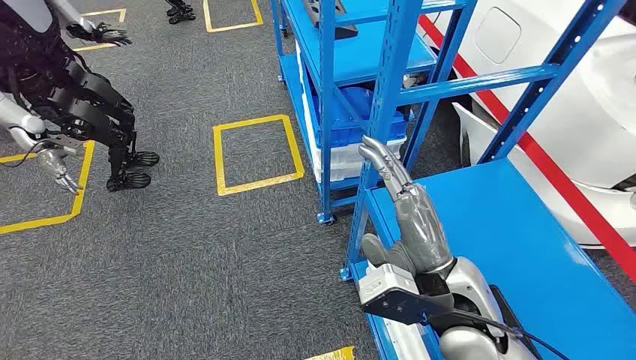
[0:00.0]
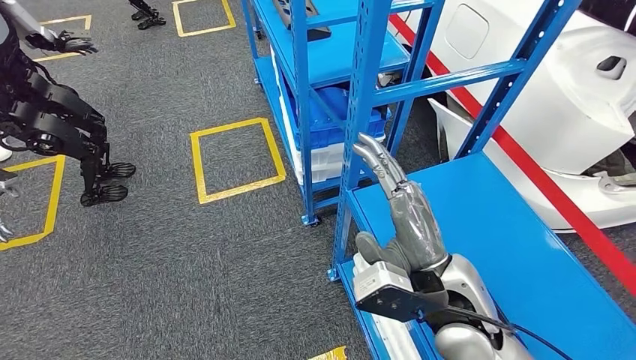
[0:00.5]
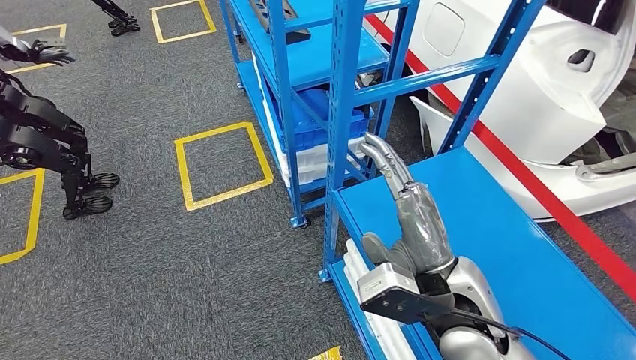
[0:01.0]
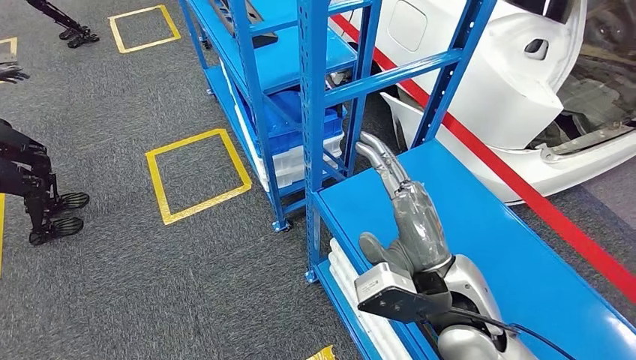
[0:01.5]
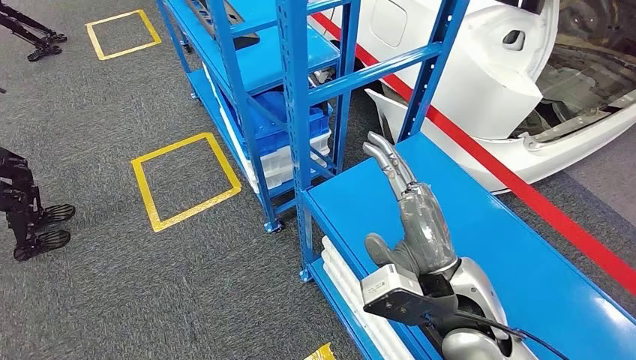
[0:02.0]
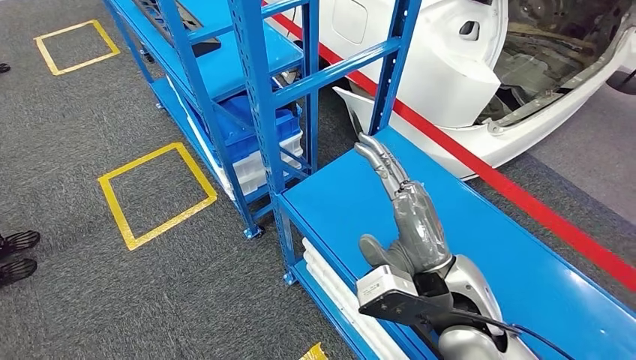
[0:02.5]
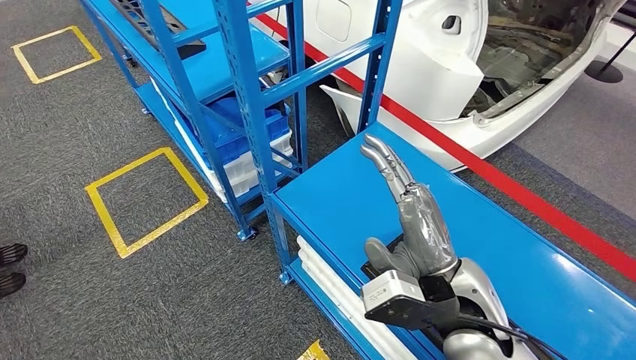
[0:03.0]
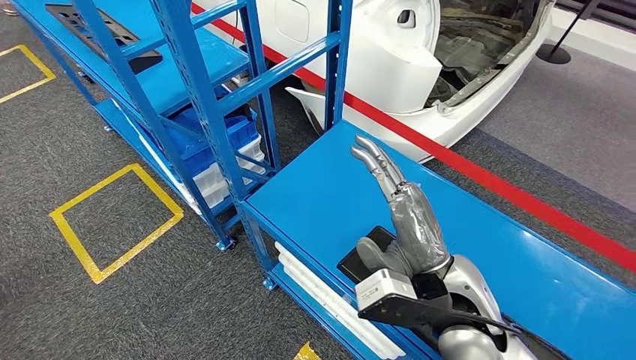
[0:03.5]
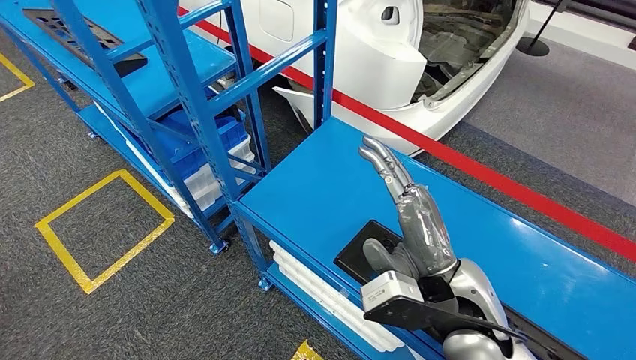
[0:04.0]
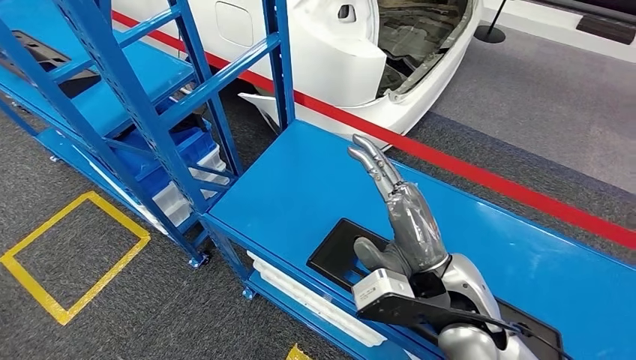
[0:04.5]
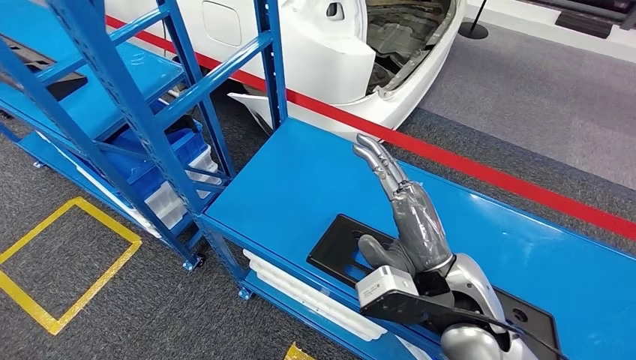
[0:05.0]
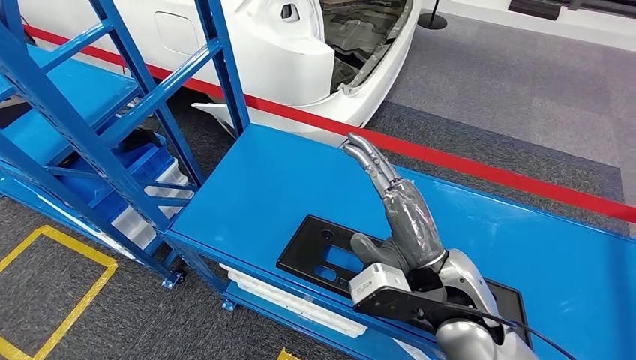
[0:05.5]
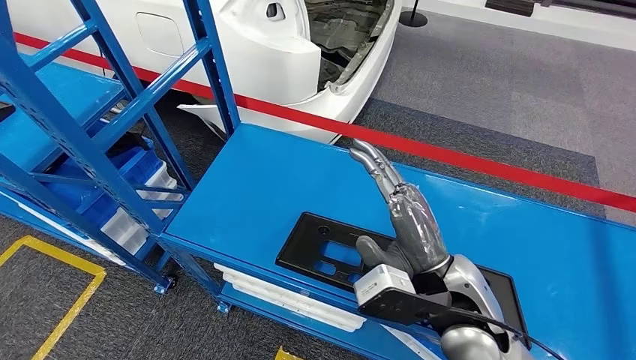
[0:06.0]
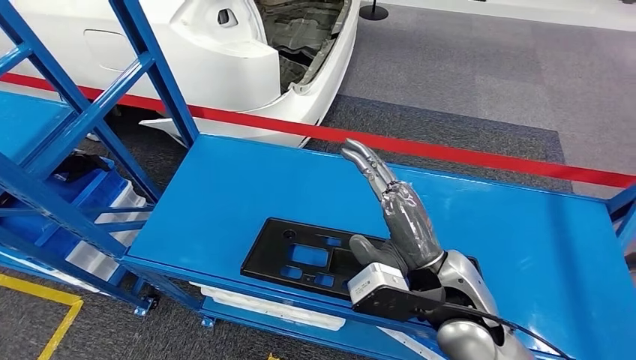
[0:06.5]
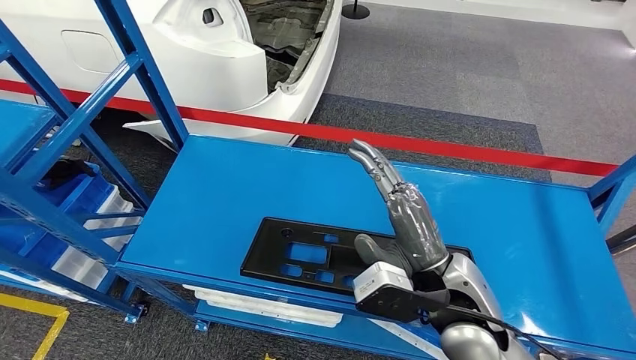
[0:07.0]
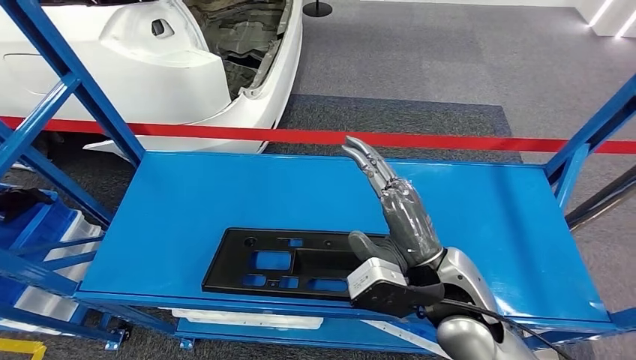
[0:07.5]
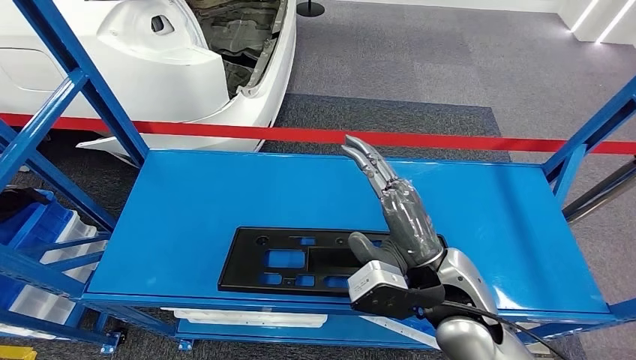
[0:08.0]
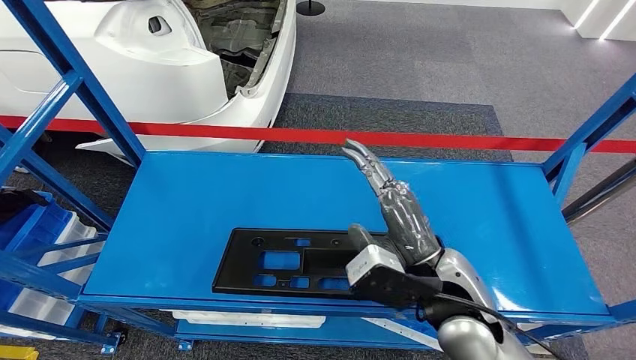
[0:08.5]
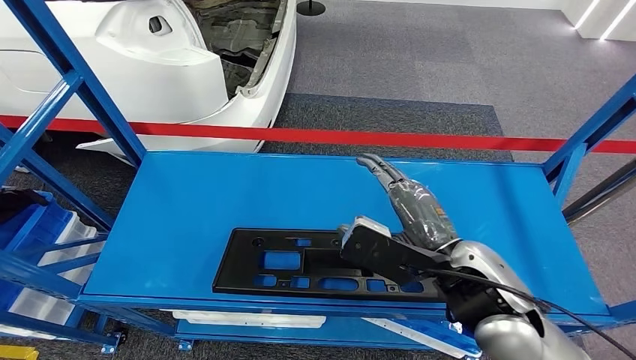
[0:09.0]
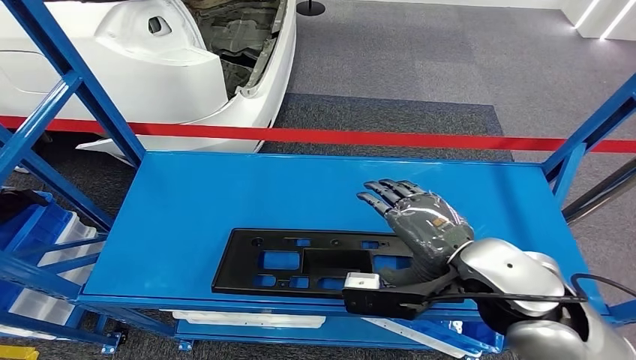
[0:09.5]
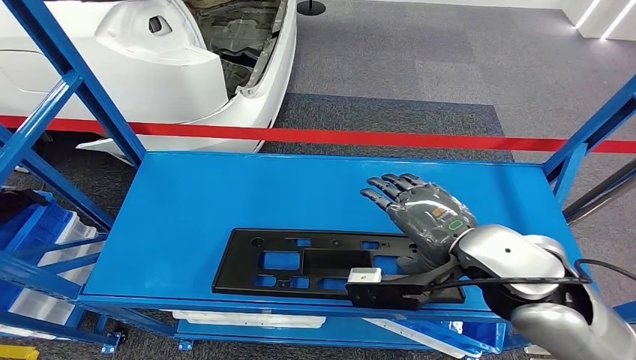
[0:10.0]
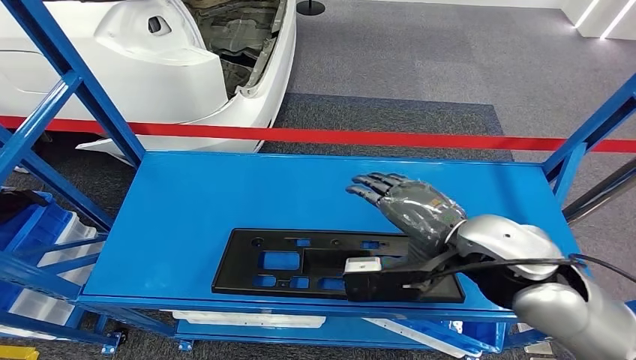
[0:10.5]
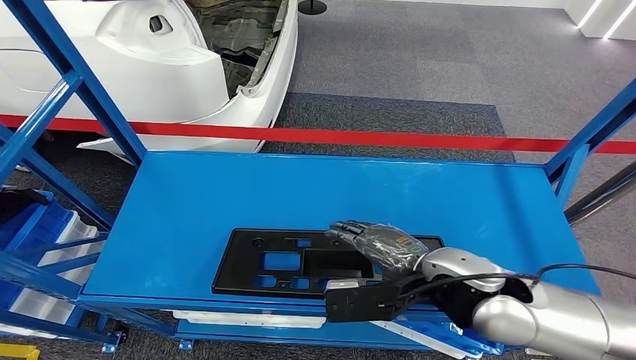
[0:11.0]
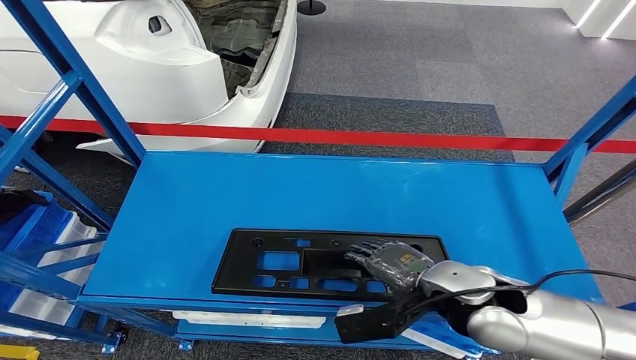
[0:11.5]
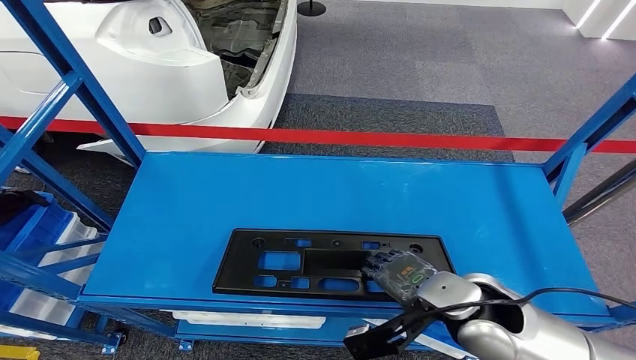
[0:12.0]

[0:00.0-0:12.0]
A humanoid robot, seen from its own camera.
0:08.0 to 0:10.0: The right hand goes about 5 cm upward.
0:10.0 to 0:12.0: The right hand is displaced downward by some 10 cm.

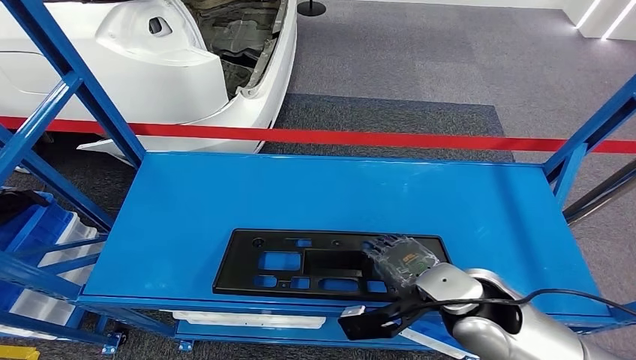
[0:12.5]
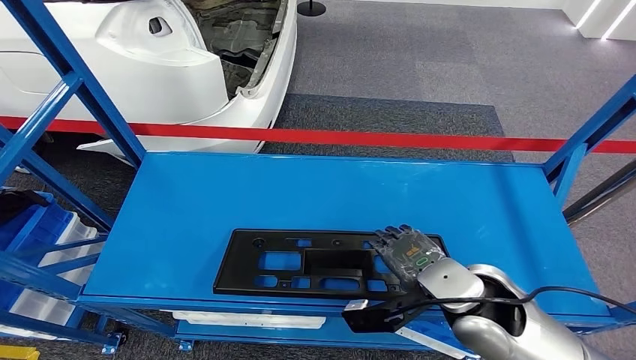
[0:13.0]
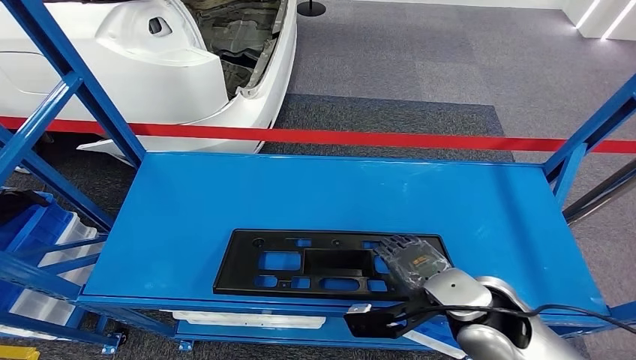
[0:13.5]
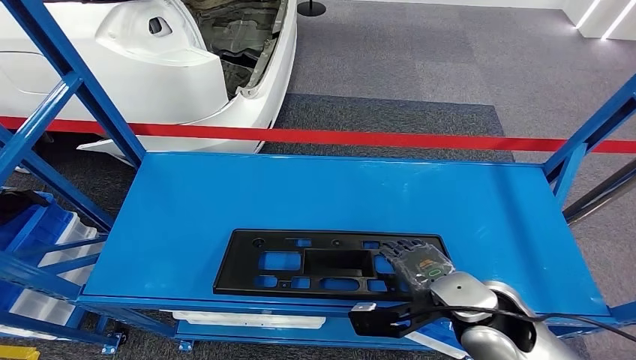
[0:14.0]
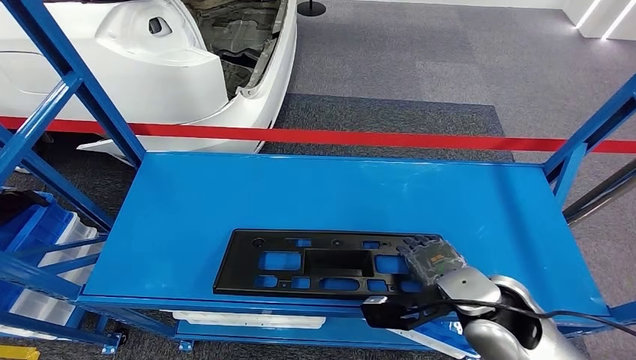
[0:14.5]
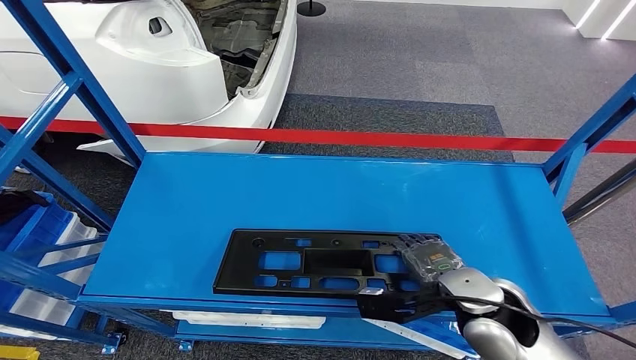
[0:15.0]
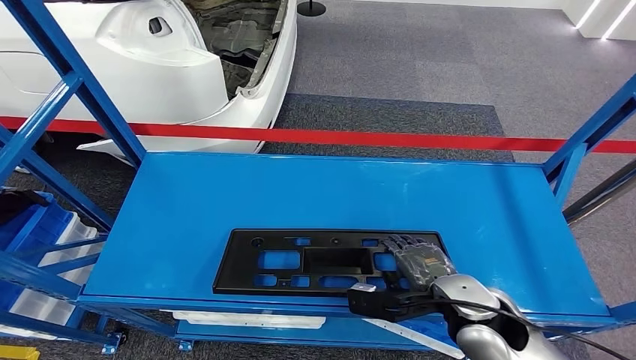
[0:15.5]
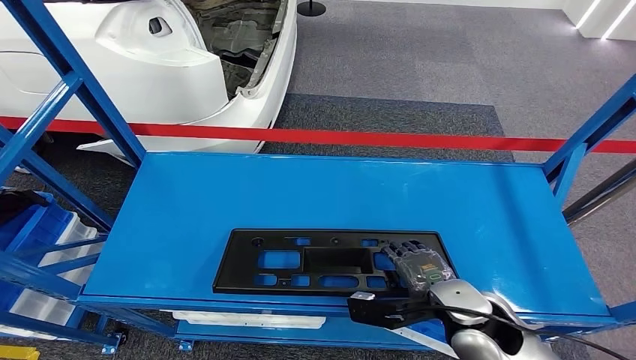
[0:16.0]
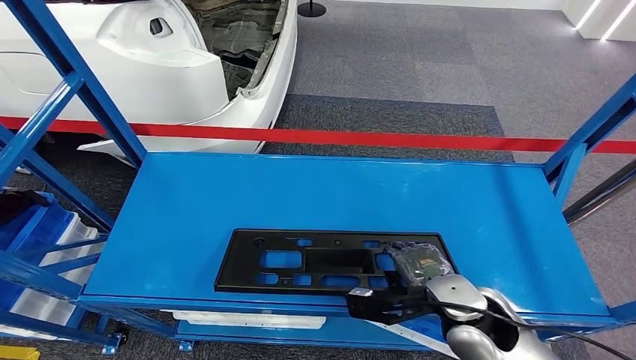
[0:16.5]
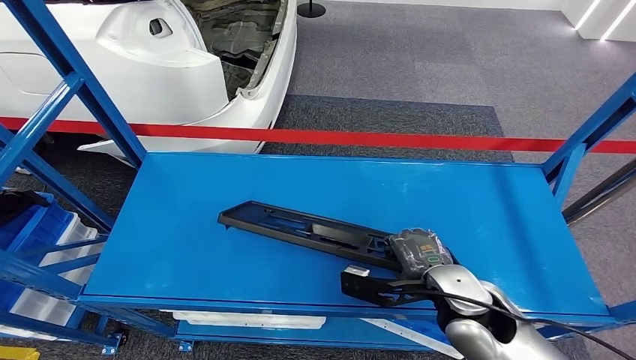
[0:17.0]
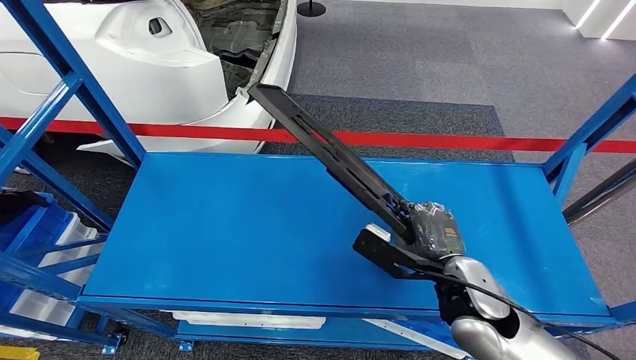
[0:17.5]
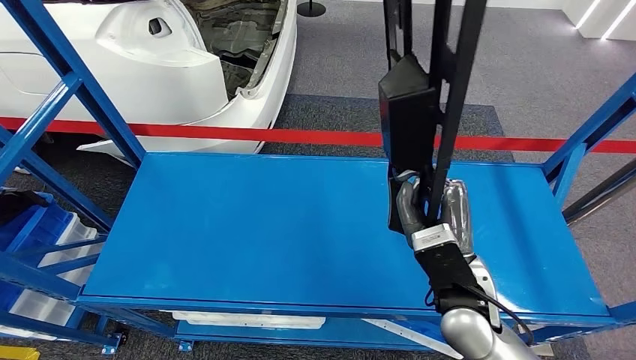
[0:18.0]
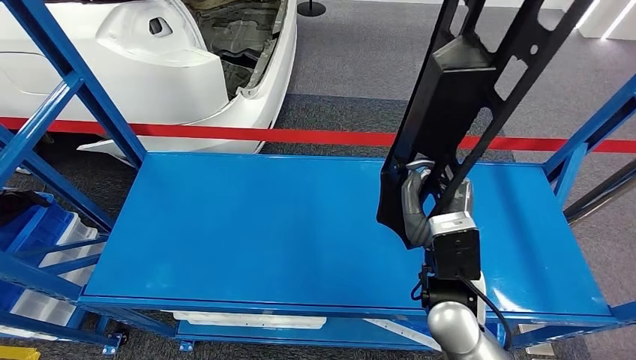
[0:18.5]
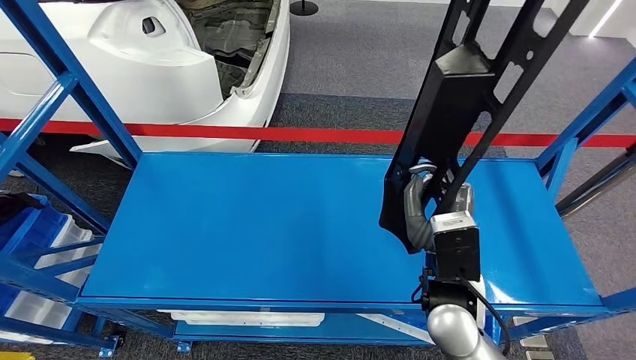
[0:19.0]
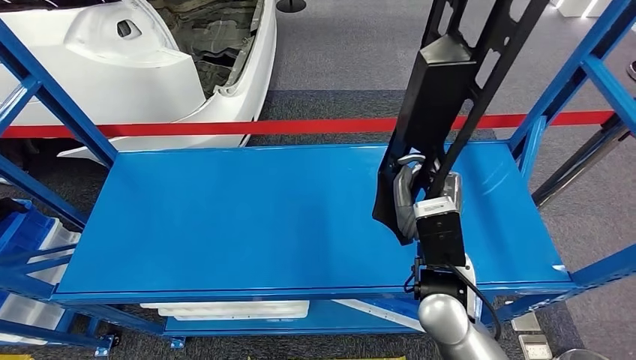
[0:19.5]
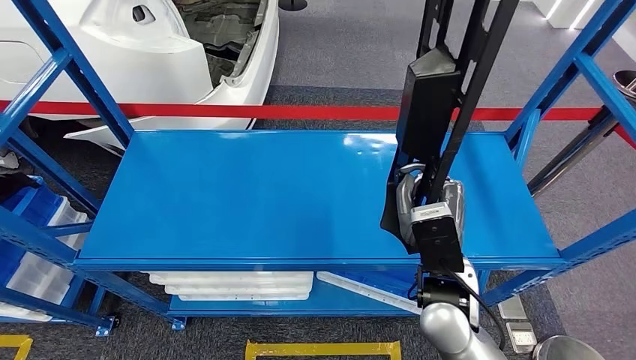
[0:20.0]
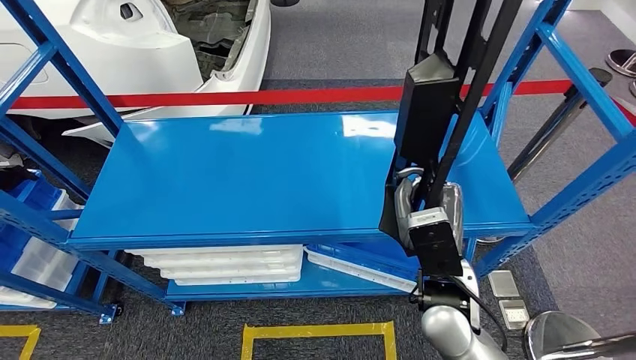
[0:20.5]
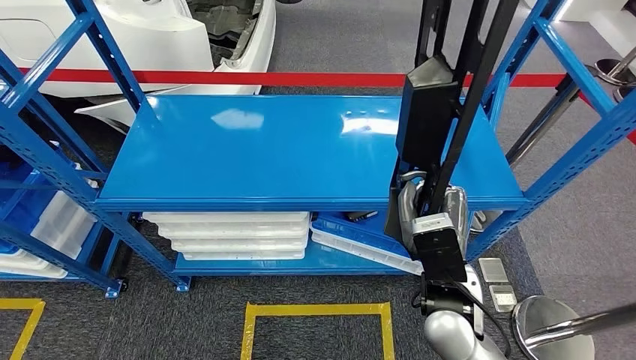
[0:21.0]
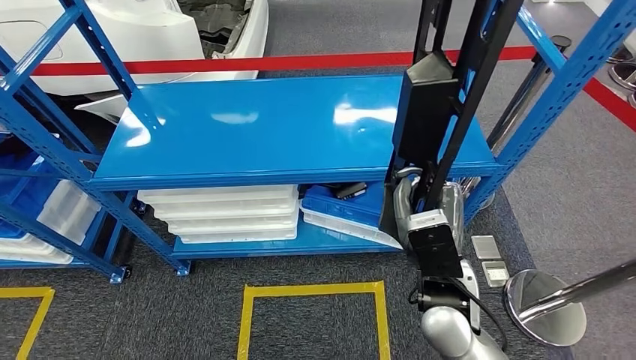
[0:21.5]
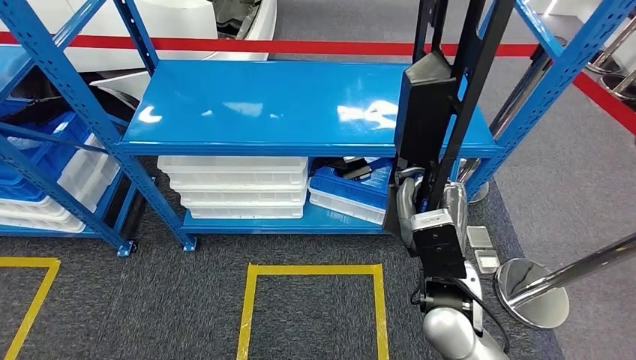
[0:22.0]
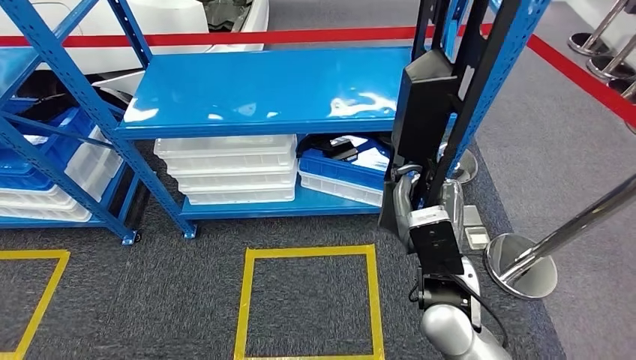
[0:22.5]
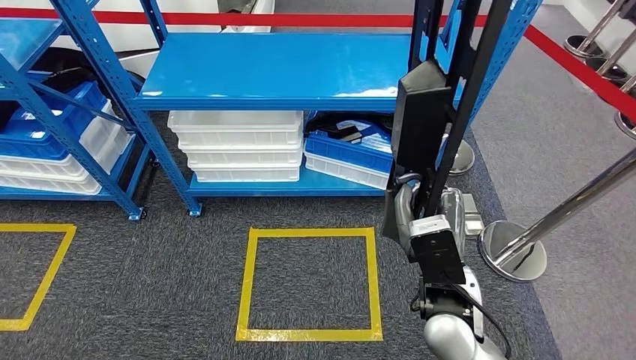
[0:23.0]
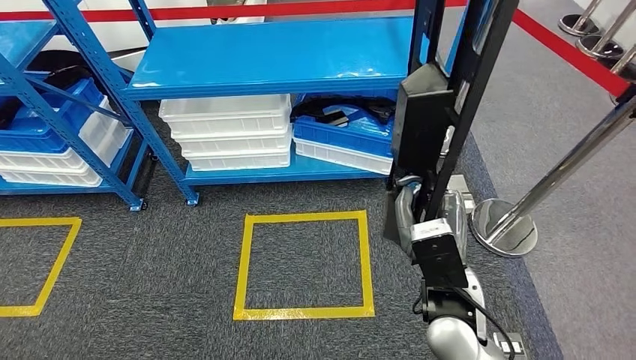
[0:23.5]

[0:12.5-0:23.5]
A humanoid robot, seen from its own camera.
Step, 0:12.5 to 0:22.0: Pick up the large material from the shelf.
0:12.5 to 0:14.5: The hands stay close to where they were, moving slightly.
0:14.5 to 0:16.0: The hands make only small movements.
